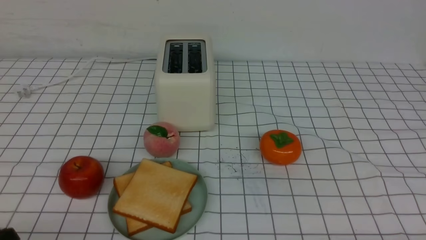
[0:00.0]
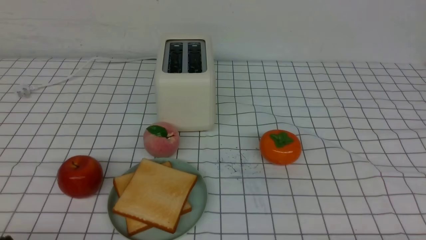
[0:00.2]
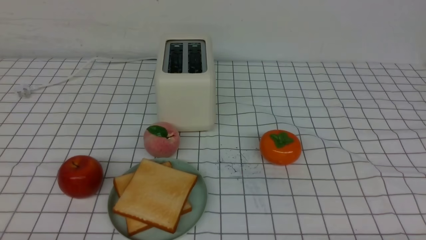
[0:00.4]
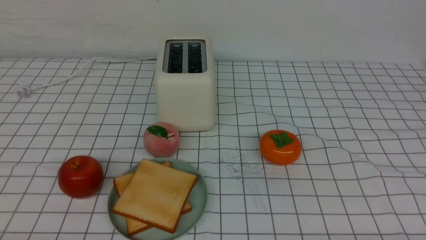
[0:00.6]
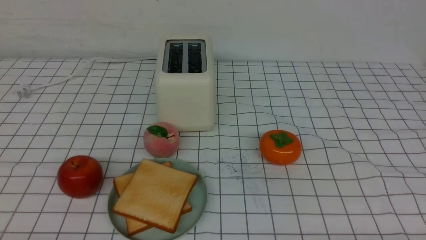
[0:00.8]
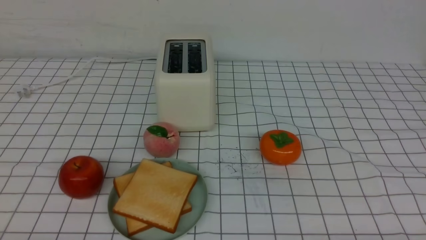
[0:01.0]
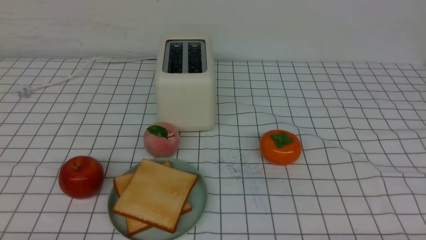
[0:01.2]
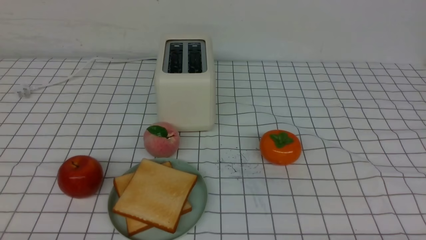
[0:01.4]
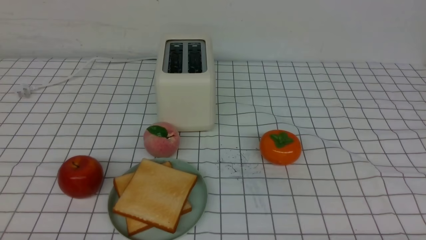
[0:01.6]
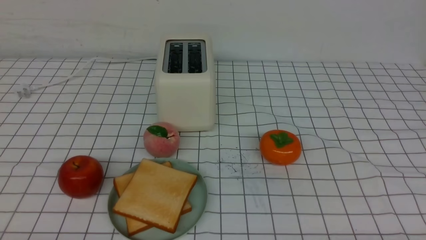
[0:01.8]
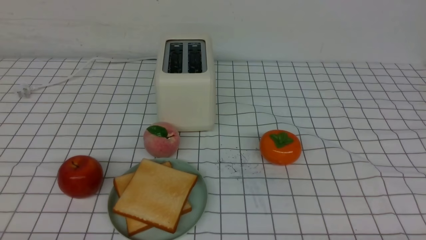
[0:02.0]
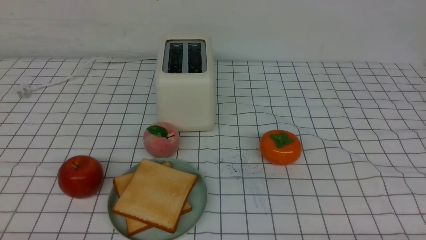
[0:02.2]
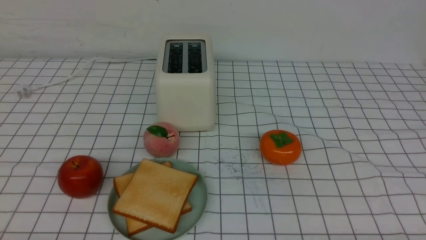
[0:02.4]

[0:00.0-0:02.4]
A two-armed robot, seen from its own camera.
Task of the whole recording: take toasted bread from bread machine on white checkered table place on plate.
0:01.2 to 0:02.4: Neither gripper changes place.
